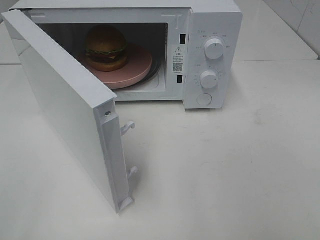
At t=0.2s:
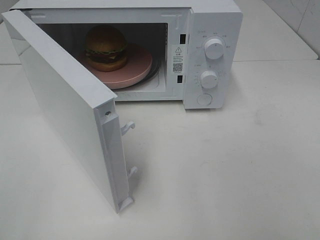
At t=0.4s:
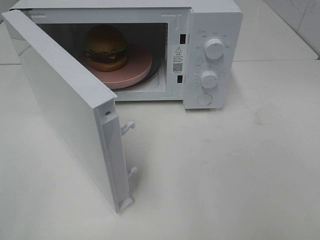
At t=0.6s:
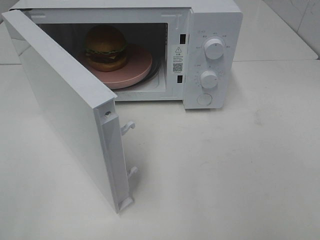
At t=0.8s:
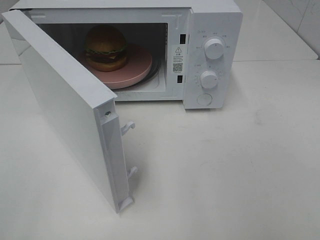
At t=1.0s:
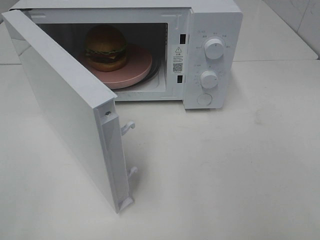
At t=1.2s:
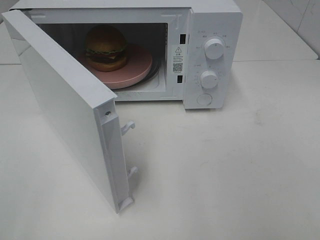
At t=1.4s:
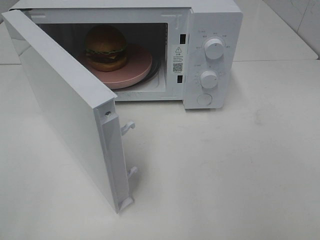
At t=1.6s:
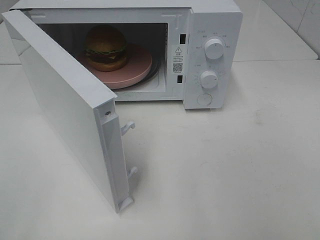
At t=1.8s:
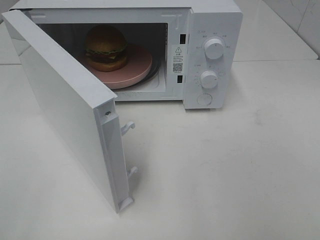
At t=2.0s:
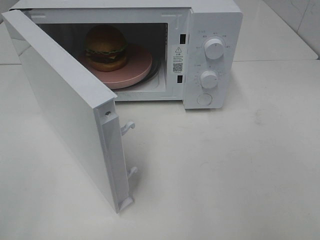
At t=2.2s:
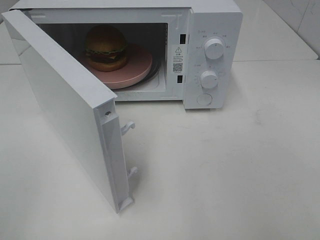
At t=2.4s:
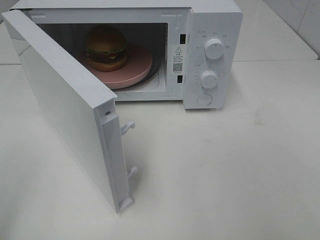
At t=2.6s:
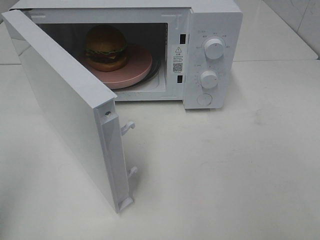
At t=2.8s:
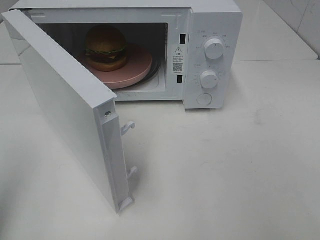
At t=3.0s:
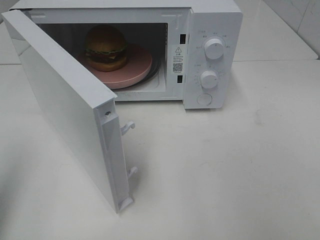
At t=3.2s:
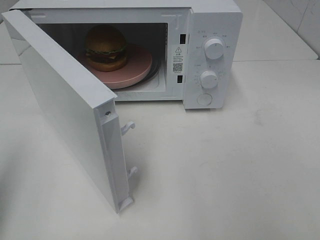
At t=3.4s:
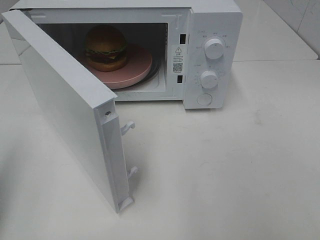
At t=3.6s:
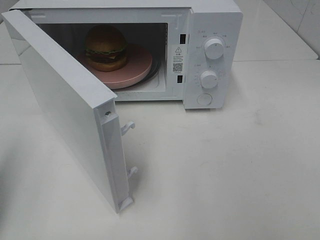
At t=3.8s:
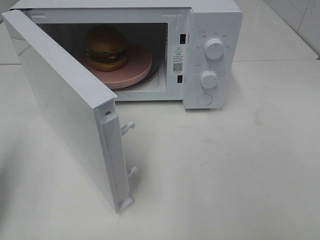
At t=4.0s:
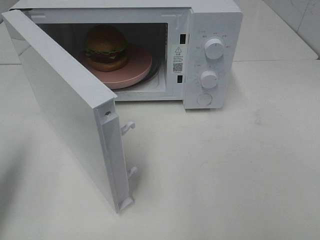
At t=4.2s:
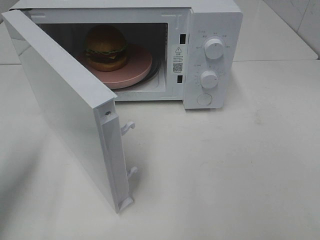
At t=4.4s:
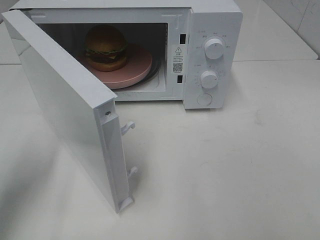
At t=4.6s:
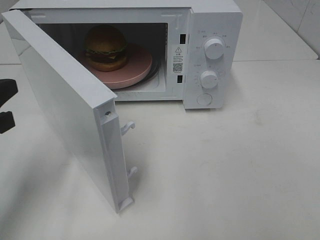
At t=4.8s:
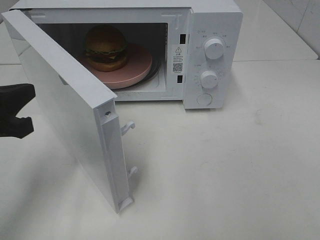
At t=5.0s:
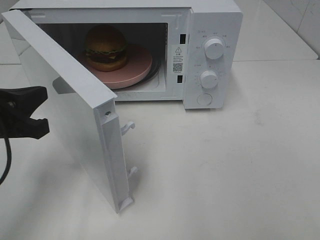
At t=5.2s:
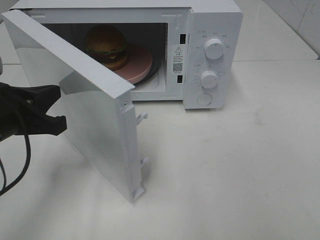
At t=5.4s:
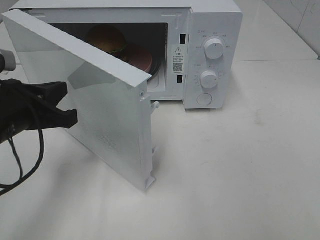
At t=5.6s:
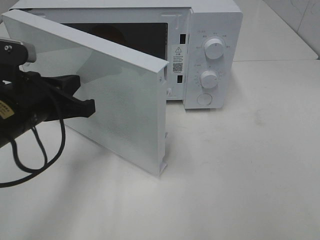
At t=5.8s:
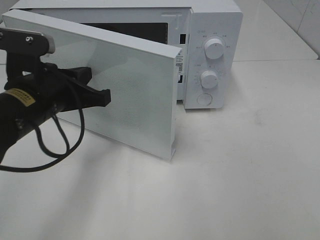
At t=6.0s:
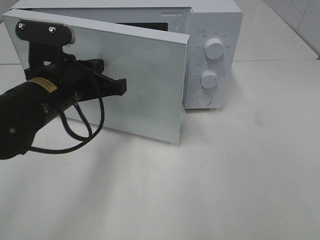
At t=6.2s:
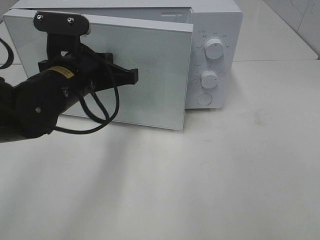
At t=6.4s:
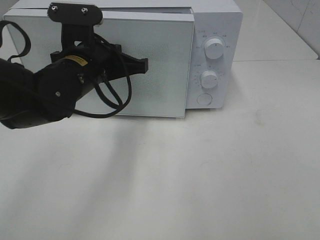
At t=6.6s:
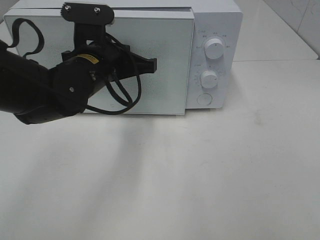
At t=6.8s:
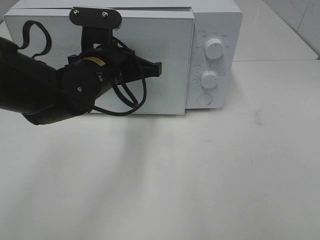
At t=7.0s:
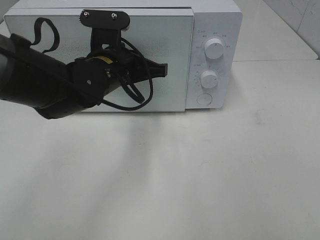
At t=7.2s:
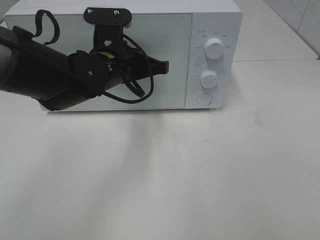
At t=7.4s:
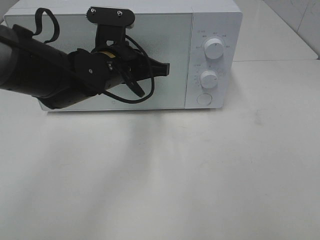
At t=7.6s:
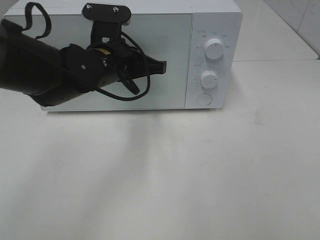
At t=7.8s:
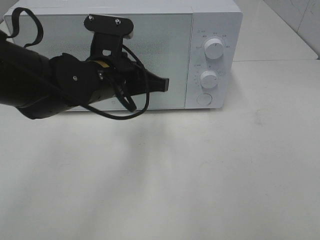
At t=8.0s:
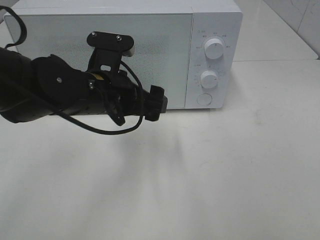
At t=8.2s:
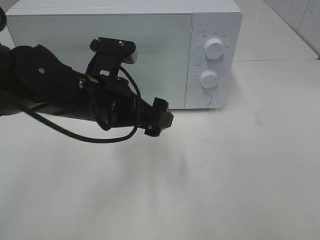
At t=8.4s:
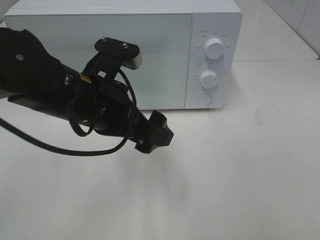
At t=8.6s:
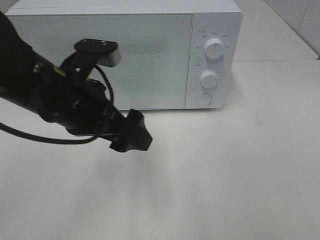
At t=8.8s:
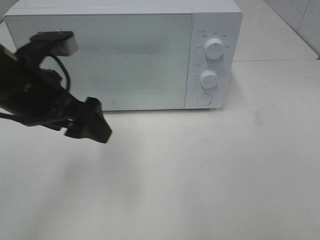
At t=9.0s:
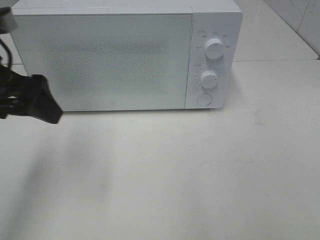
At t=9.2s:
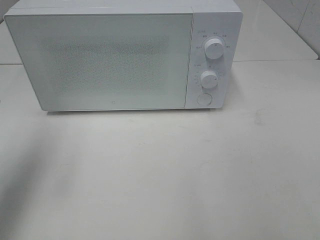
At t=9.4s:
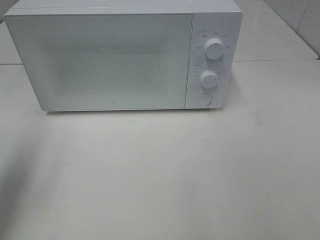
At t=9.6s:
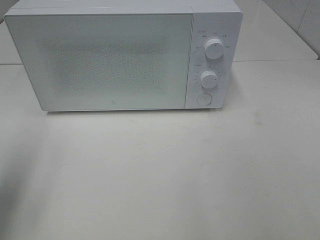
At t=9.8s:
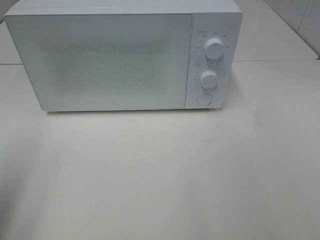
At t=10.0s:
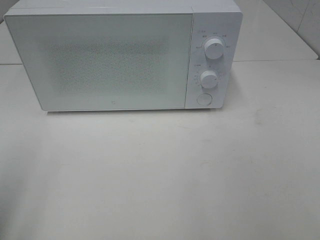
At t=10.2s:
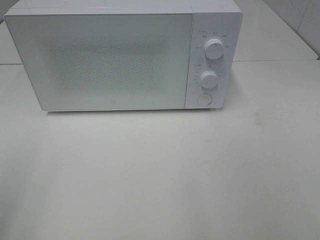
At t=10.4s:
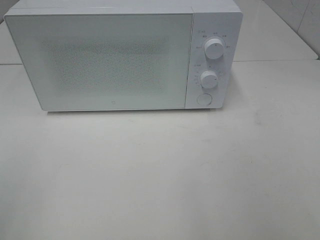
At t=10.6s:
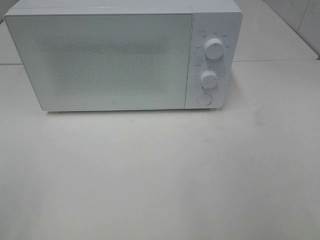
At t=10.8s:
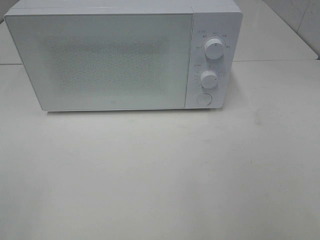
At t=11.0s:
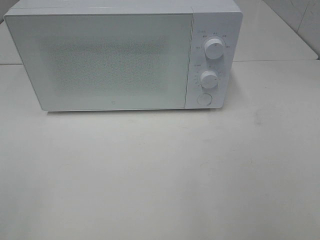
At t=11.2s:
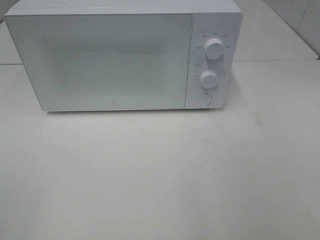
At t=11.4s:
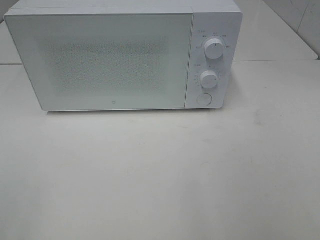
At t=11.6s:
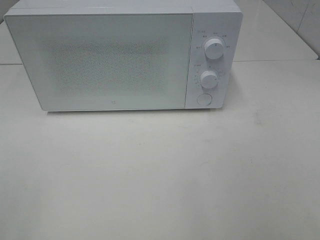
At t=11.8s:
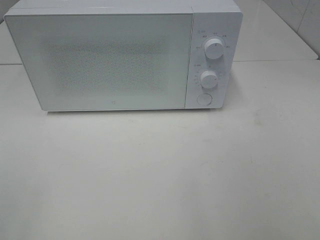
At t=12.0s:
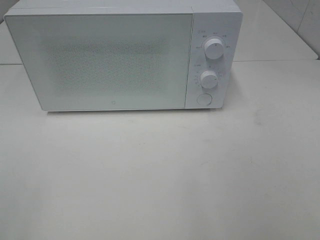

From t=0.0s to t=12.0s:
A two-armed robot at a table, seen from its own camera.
Task of the whole recording: Heat the burger.
Step, from t=0.0s to t=8.0s: Left hand: close the microwave door.
From t=0.0s to t=1.6s: Neither gripper changes place.
From t=1.6s to t=3.0s: The left gripper heads forward, covering about 10 cm, and closes.
From t=3.0s to t=4.4s: The left gripper moves downward and forward, approximately 10 cm.
From t=4.4s to t=6.0s: The left gripper heads to the right and forward, covering roughly 20 cm.
From t=6.0s to t=7.6s: The left gripper moves forward and to the right, some 10 cm.
From t=7.6s to t=9.0s: The left gripper is displaced to the left, backward and upward by some 20 cm, and opens.
From t=9.0s to t=10.4s: The left gripper is displaced backward and to the left by about 20 cm.

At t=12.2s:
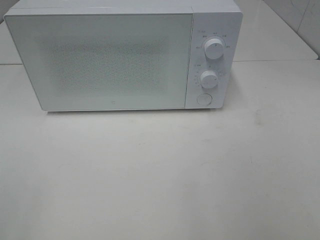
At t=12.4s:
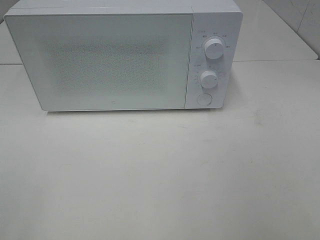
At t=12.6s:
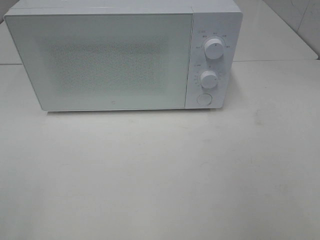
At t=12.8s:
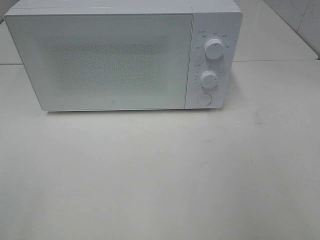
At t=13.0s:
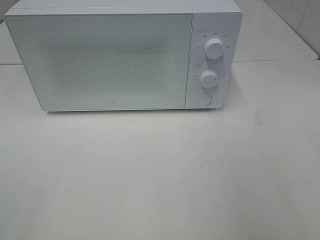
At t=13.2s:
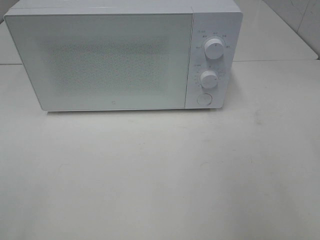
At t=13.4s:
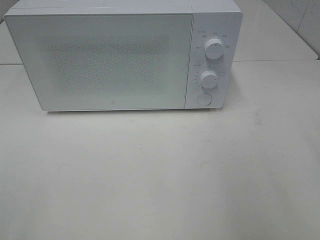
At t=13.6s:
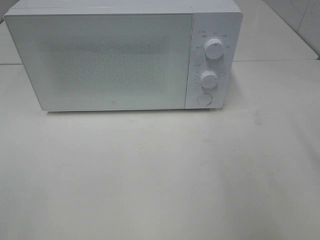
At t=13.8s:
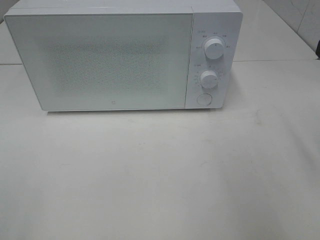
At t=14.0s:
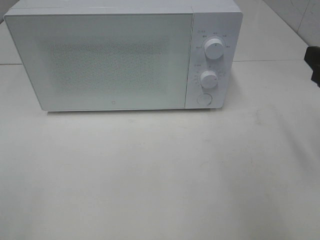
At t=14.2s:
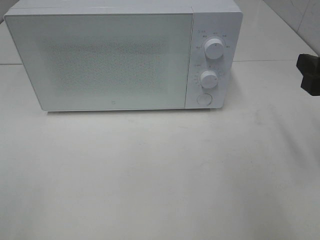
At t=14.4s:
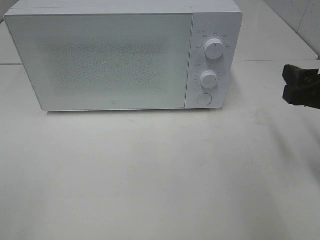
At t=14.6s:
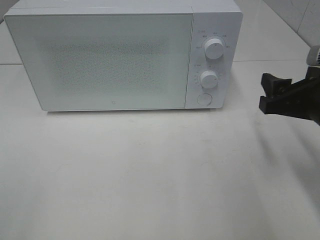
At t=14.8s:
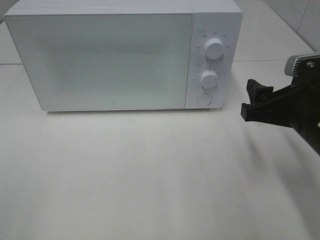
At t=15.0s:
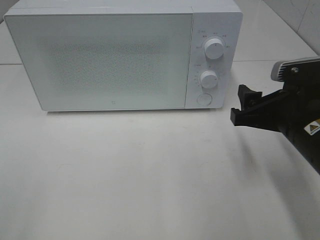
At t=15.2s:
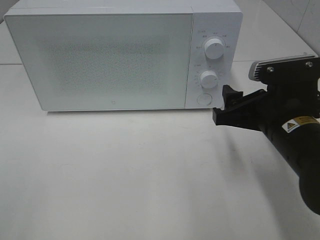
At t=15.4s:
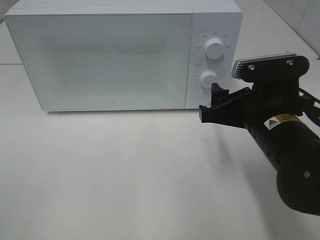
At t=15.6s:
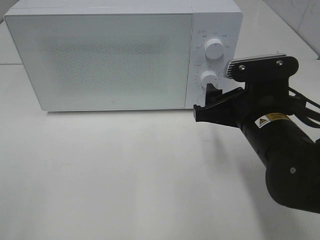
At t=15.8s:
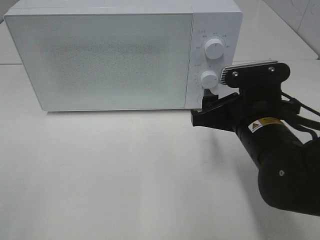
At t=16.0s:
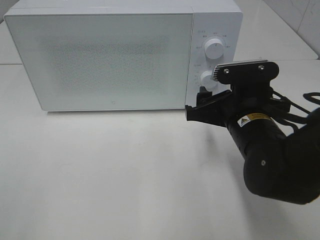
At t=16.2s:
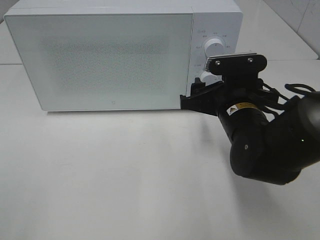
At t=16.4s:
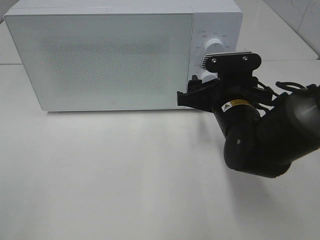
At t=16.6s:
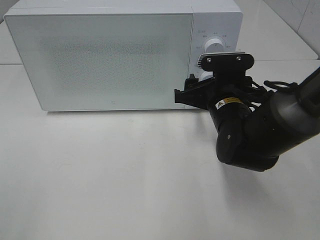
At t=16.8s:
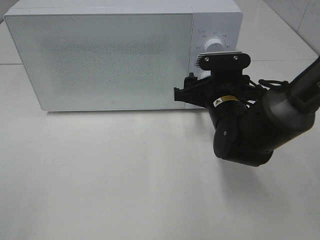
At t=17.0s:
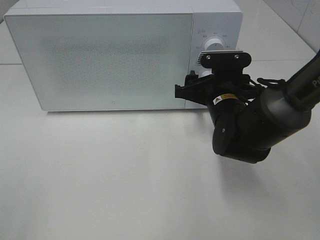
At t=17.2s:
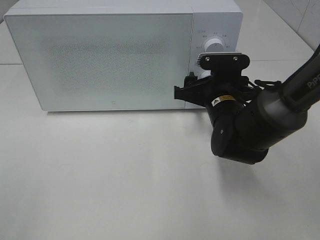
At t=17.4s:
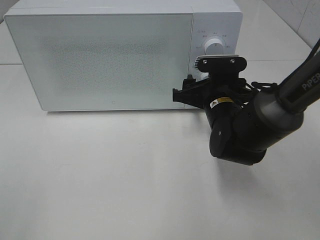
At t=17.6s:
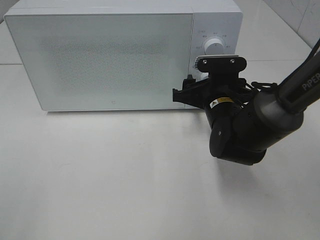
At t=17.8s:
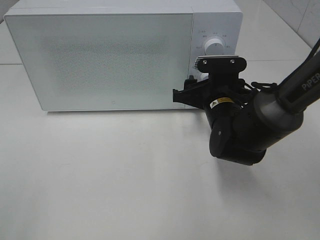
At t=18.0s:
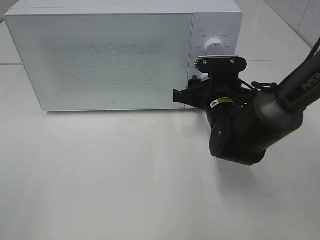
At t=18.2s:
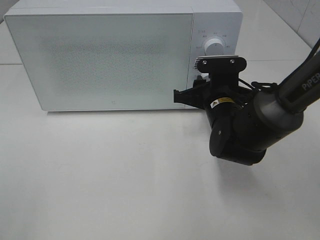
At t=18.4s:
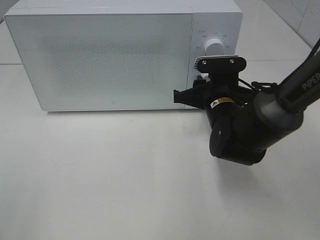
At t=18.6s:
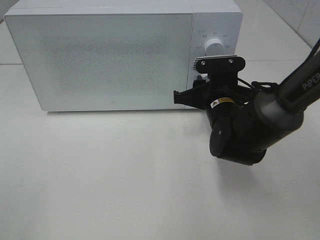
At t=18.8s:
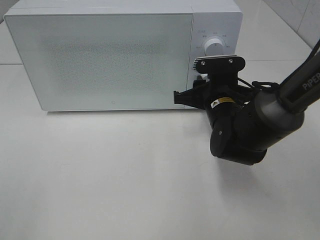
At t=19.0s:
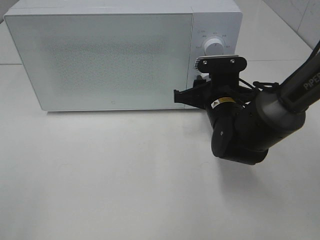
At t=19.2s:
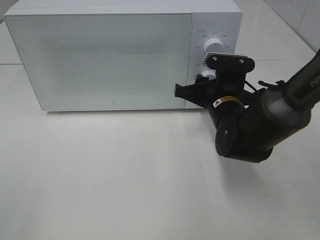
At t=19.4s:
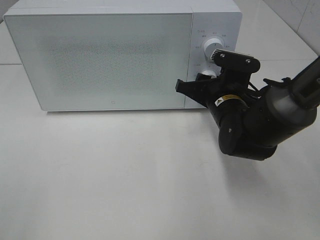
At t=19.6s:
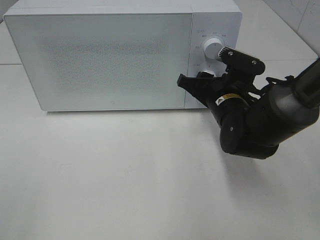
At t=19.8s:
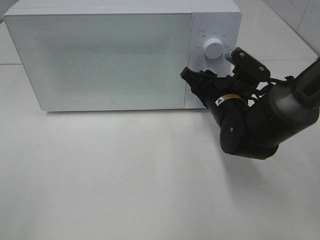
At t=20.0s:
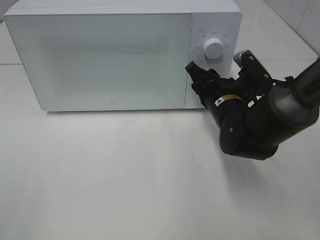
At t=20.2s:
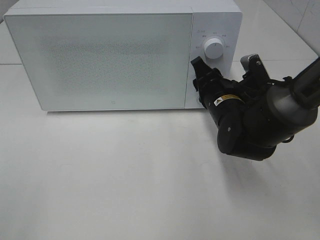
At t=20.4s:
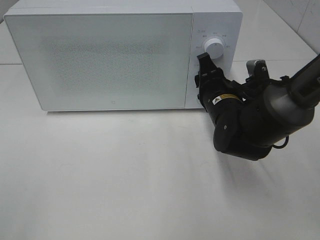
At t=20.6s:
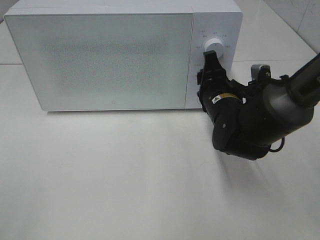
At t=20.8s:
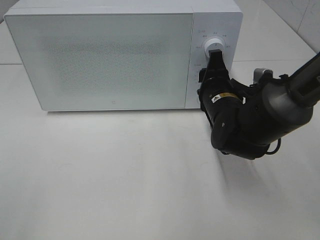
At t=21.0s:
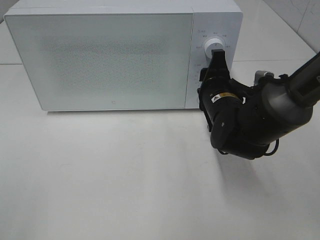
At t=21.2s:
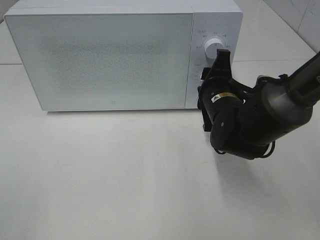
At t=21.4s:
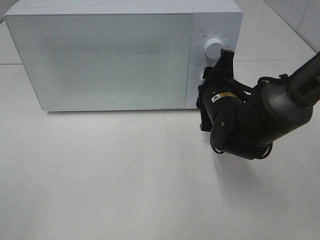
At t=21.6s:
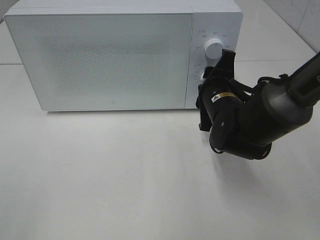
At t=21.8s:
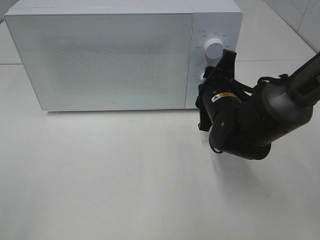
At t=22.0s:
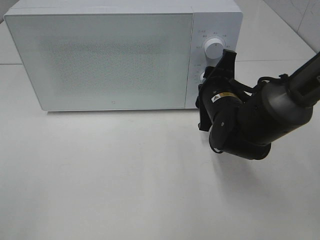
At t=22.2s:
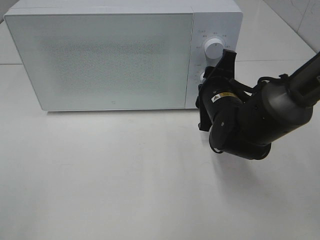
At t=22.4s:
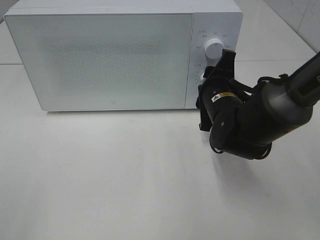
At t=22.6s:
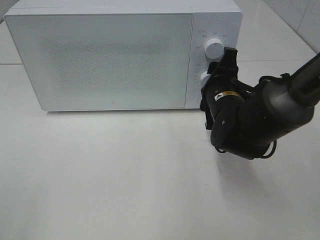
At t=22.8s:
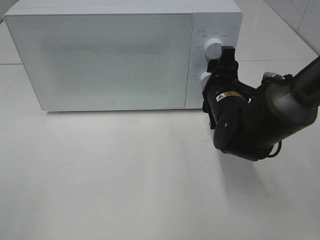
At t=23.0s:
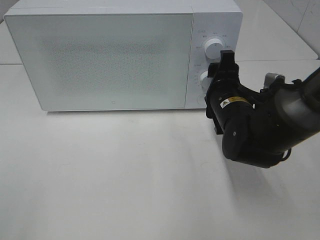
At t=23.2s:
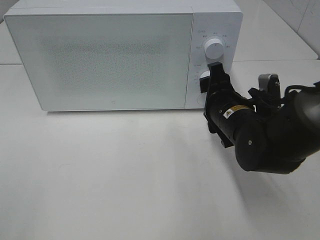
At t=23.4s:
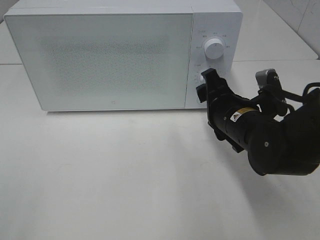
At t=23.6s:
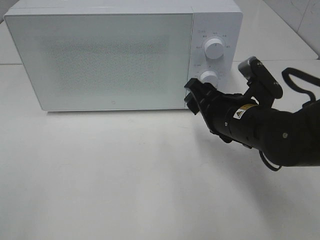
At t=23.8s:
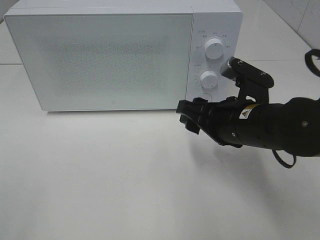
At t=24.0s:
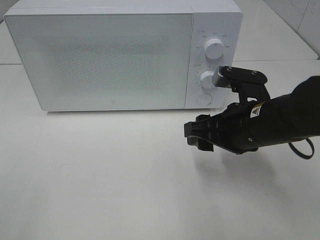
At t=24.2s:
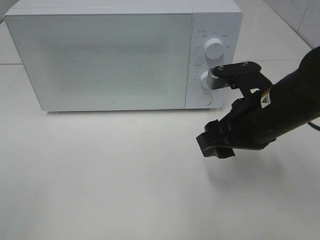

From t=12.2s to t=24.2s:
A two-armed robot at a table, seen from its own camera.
Task of the whole recording: Heat the burger.
Step, from t=12.2s to t=22.8s: Right hand: twist timer button.
From t=13.8s to t=15.2s: The right gripper goes roughly 15 cm to the left and downward.
From t=15.2s to t=16.6s: The right gripper shifts approximately 10 cm forward.
From t=16.6s to t=18.2s: The grippers stay close to where they were, moving slightly.
From t=21.2s to t=22.6s: There are only small adjustments of the grippers.
From t=22.6s to t=24.2s: The right gripper is displaced backward and upward by some 10 cm.
